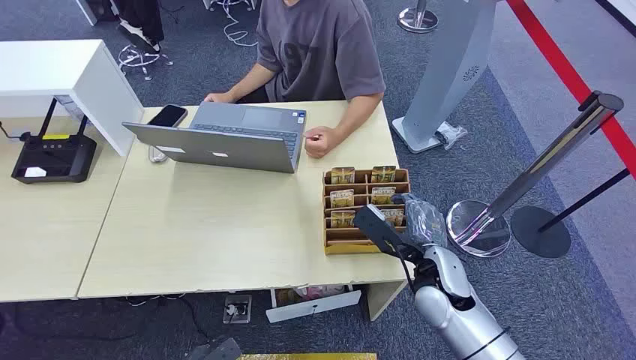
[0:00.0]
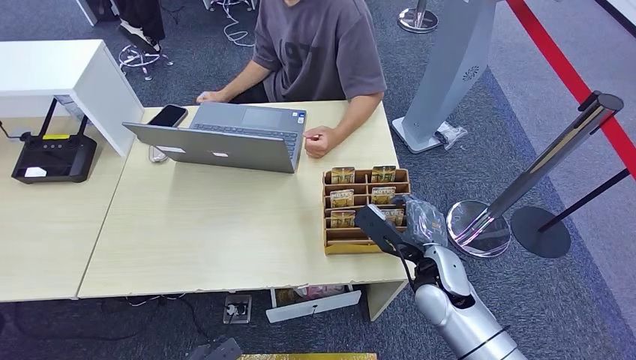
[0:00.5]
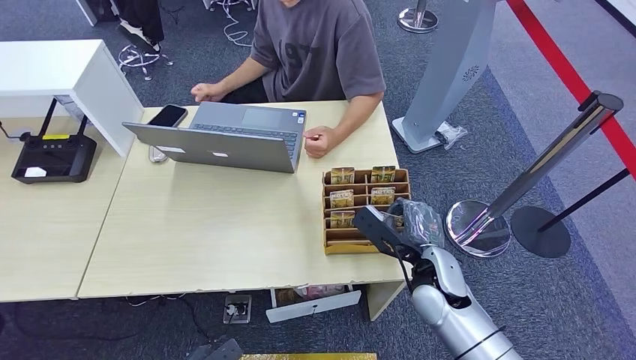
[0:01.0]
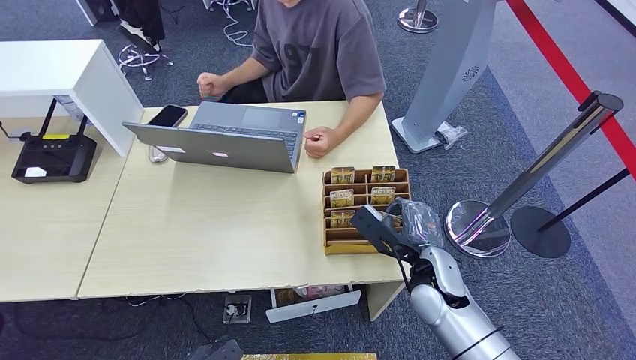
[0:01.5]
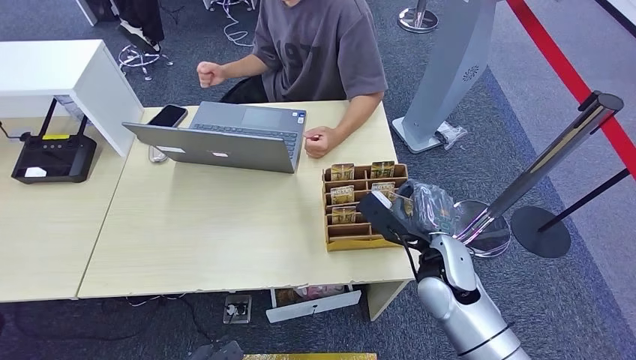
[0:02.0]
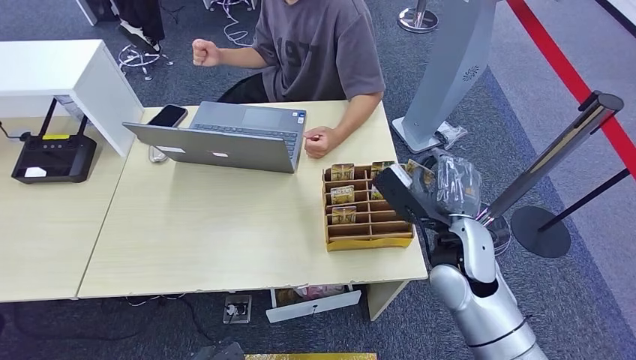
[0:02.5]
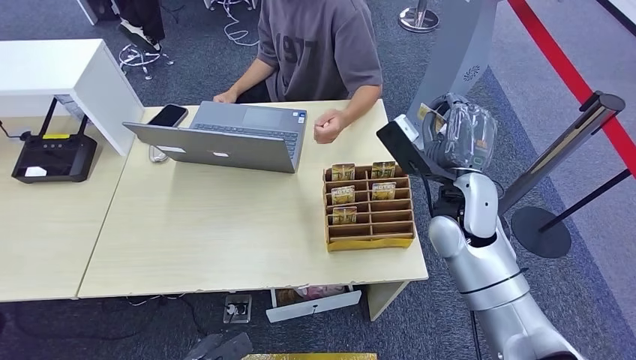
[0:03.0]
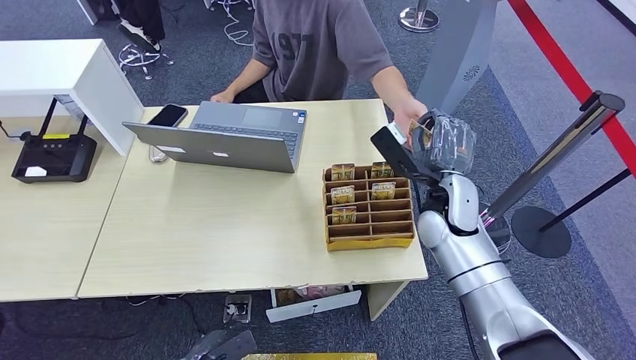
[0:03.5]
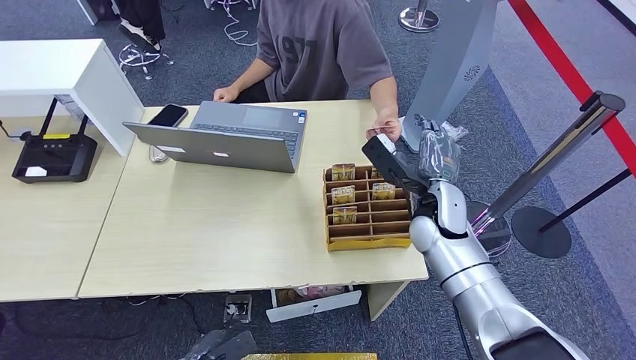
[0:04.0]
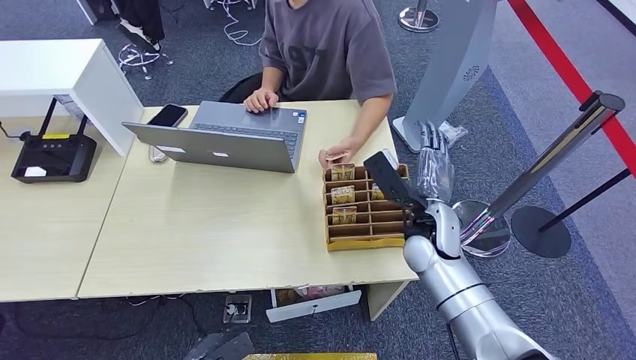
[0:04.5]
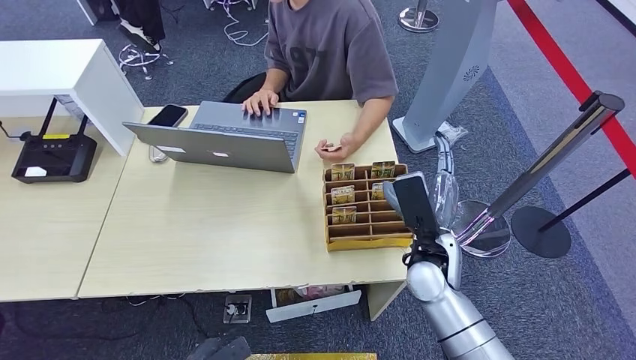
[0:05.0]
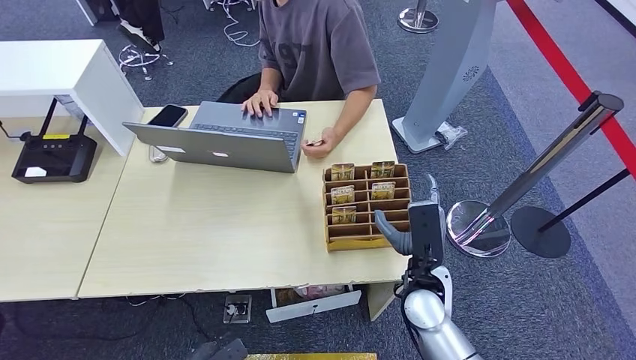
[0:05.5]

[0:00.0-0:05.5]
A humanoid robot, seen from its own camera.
Step, 0:00.0 to 0:02.5: Pick up the room card from the card holder.
Step, 0:03.0 to 0:05.0: Hand the room card to the target.
0:02.0 to 0:03.5: The right hand travels forward and upward by approximately 10 cm.
0:03.5 to 0:05.5: The right hand moves backward and downward, about 15 cm.

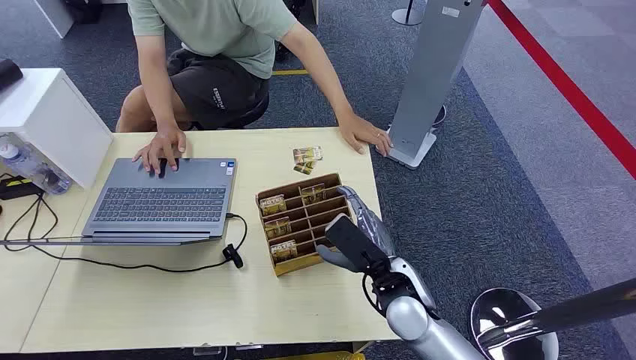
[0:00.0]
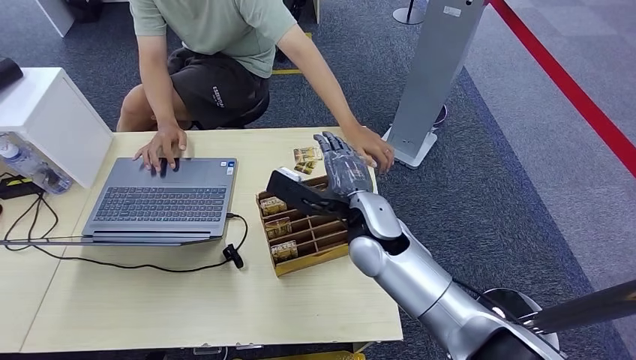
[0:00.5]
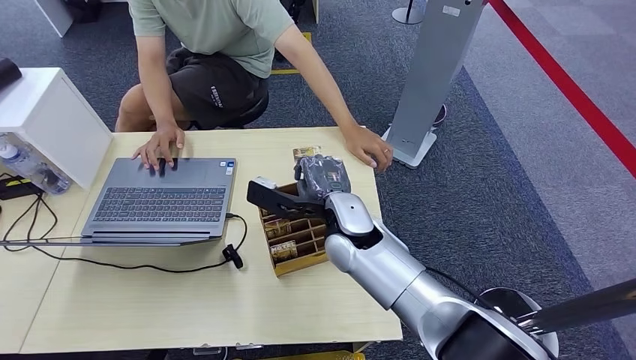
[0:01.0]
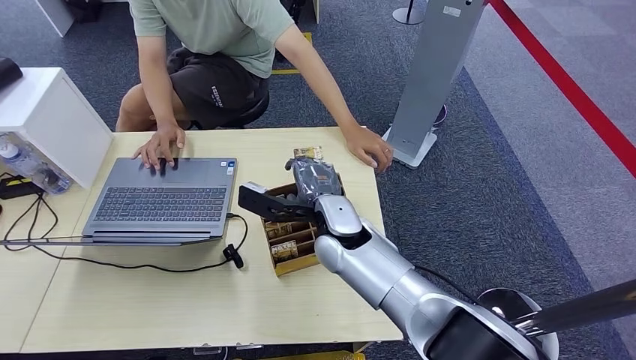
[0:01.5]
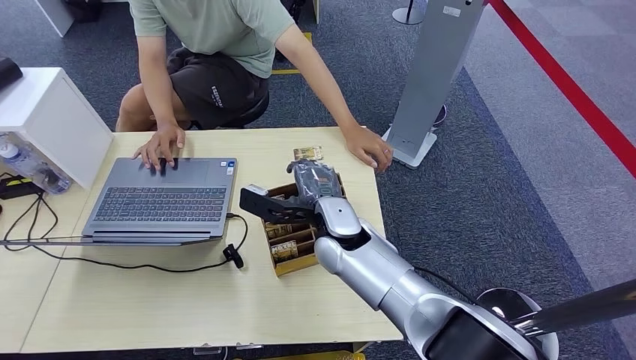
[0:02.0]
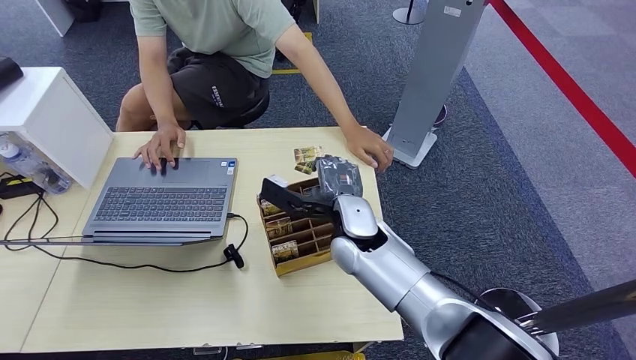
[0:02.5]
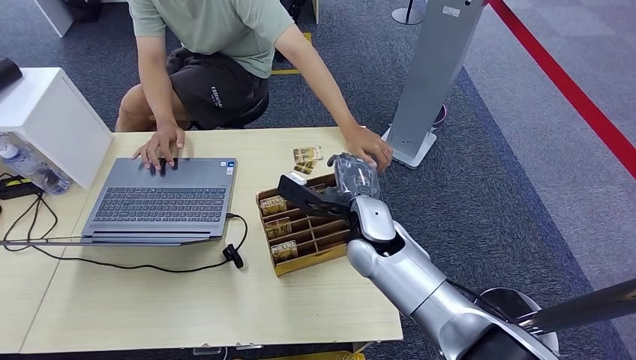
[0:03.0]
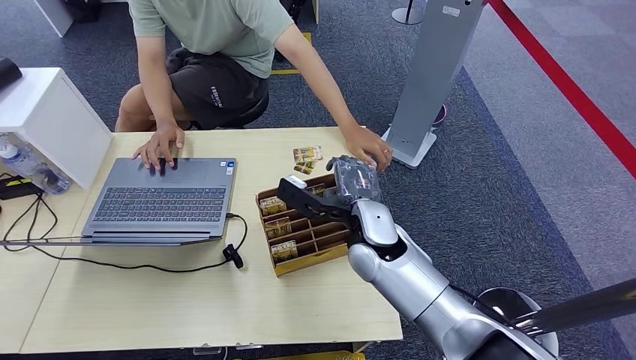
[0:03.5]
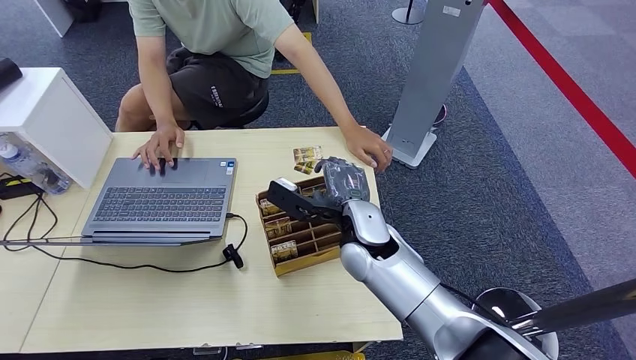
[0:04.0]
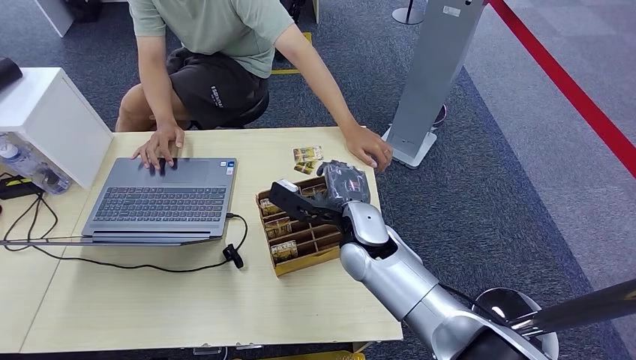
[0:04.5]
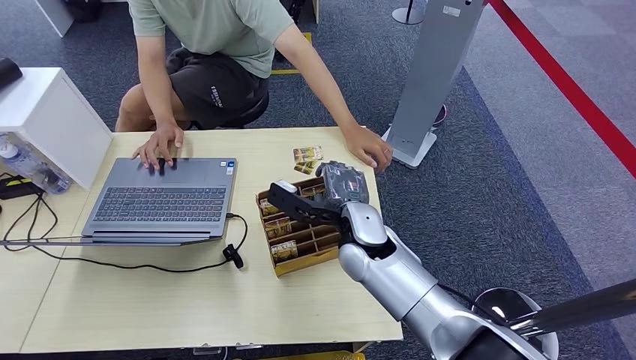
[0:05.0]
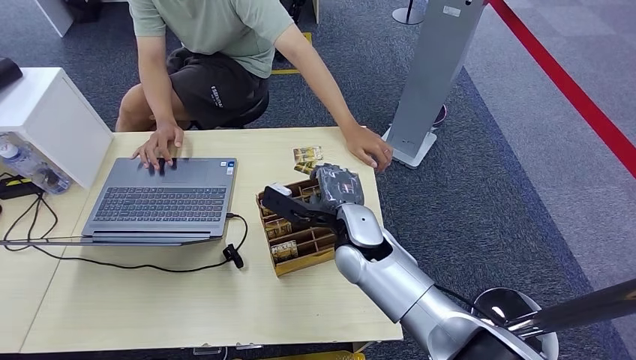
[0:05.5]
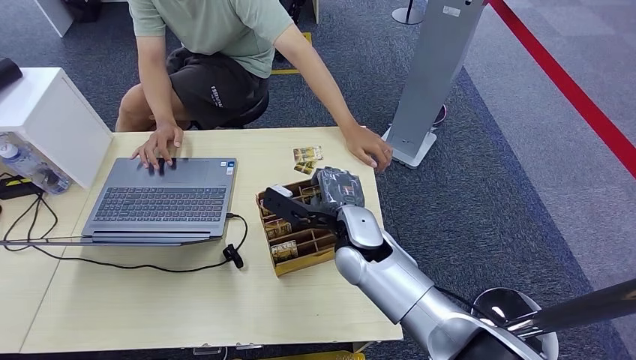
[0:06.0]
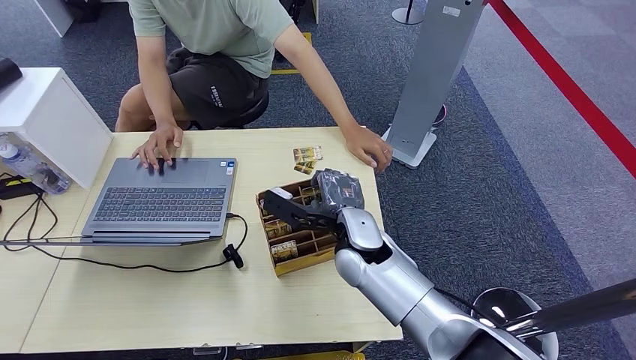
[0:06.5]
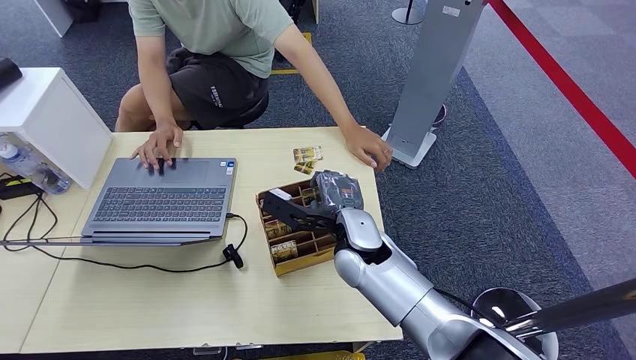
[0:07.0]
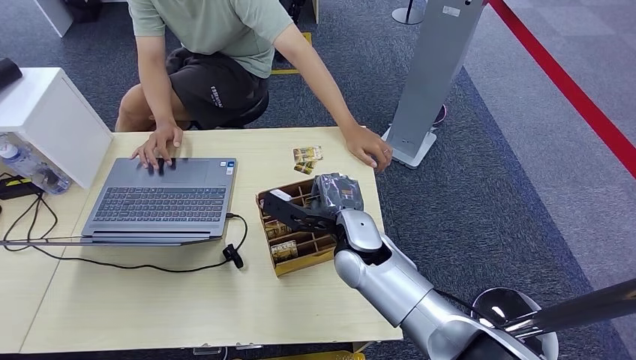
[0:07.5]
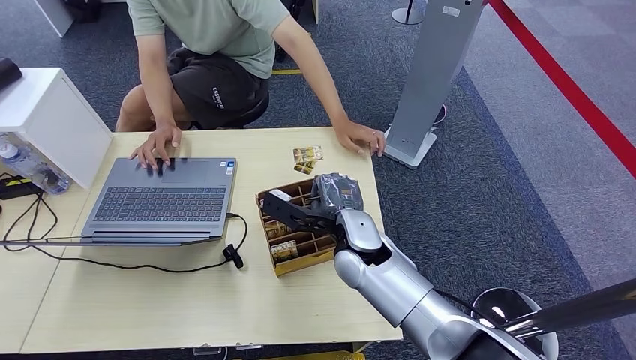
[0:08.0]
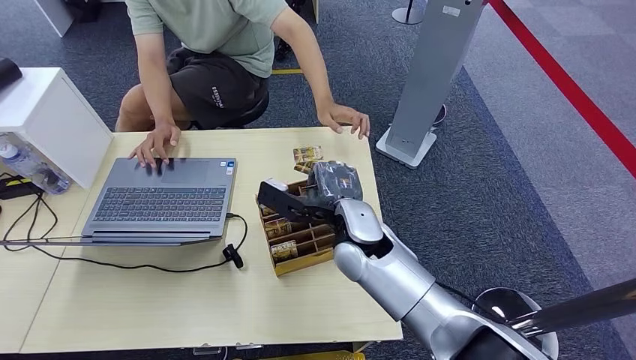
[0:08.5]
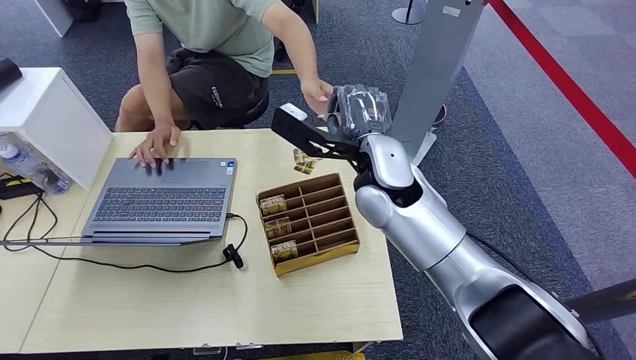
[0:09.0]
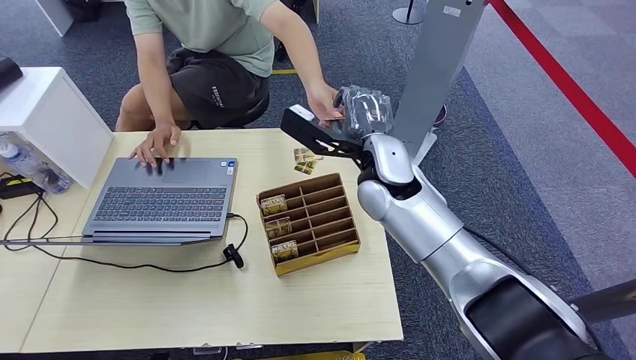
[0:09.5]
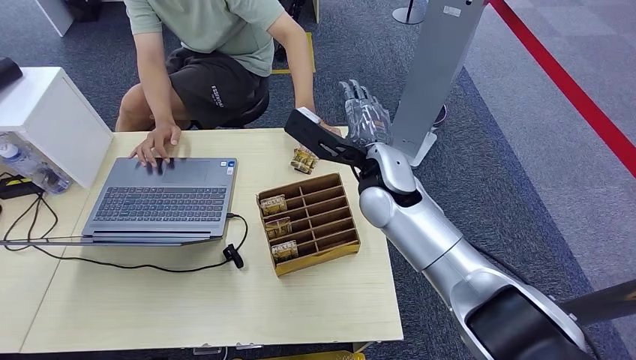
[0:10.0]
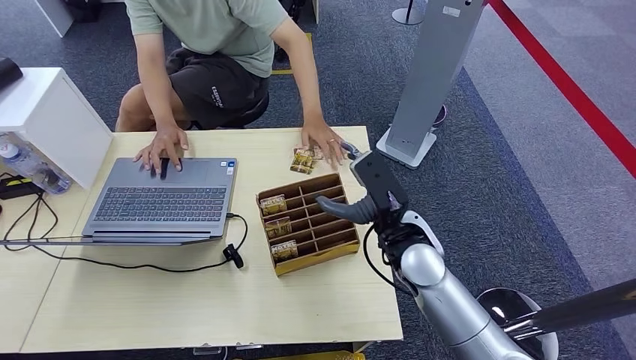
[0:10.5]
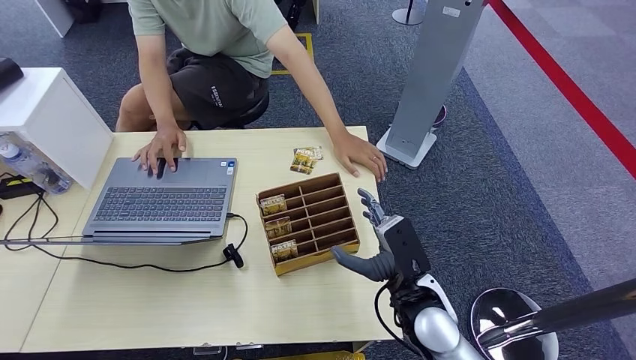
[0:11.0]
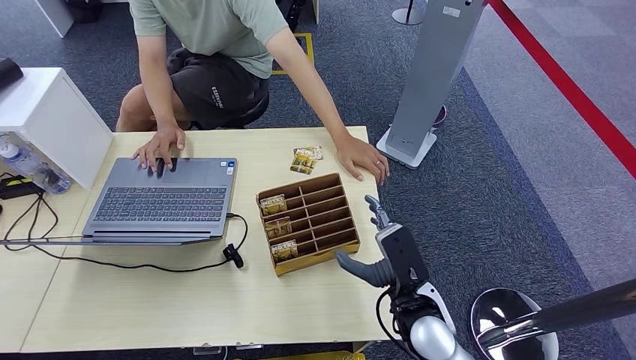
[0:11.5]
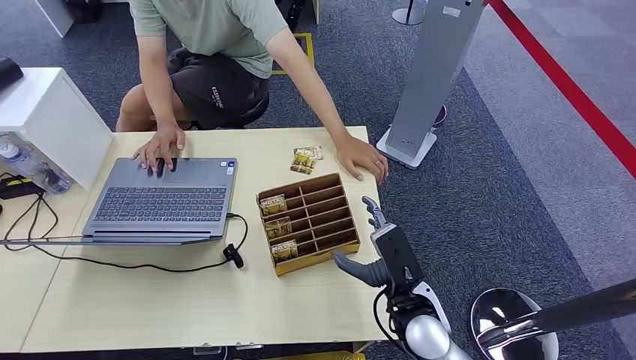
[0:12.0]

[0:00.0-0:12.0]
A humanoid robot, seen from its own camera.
Step, 0:00.0 to 0:08.5: Pick up the room card from the card holder.
Step, 0:09.0 to 0:11.5: Hand the room card to the target.
0:02.0 to 0:04.0: There are only small adjustments of the hands.
0:04.0 to 0:06.0: Both hands stay about where they are.
0:06.0 to 0:08.0: Both hands stay about where they are.
0:08.0 to 0:10.0: The right hand goes some 10 cm upward and forward.
0:10.0 to 0:12.0: The right hand shifts approximately 25 cm backward and downward.

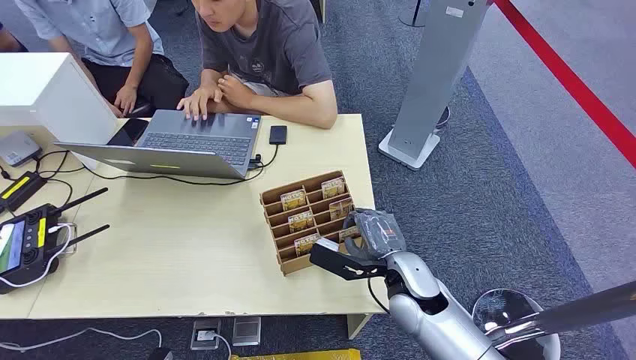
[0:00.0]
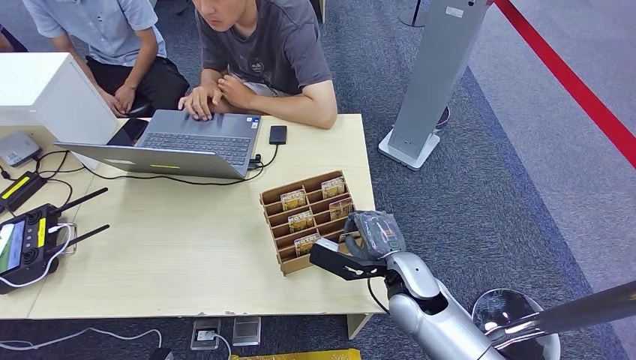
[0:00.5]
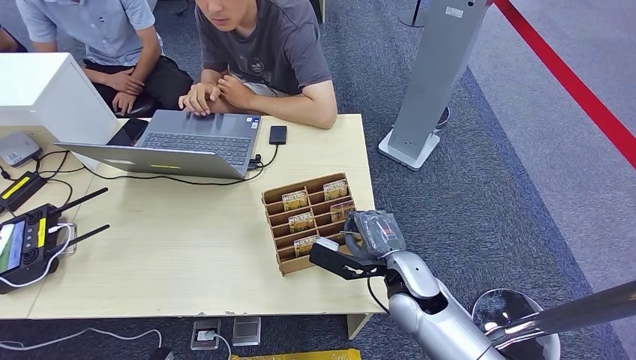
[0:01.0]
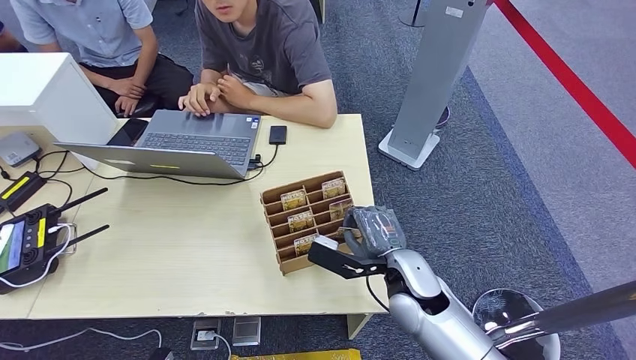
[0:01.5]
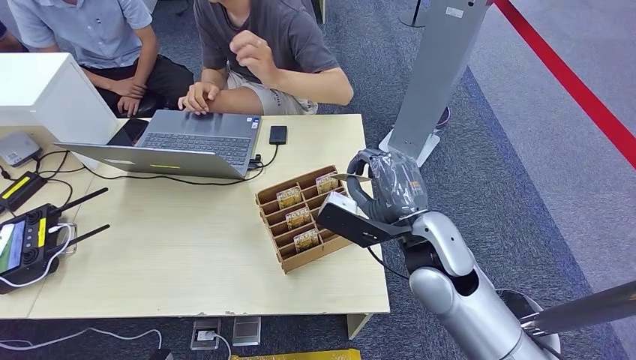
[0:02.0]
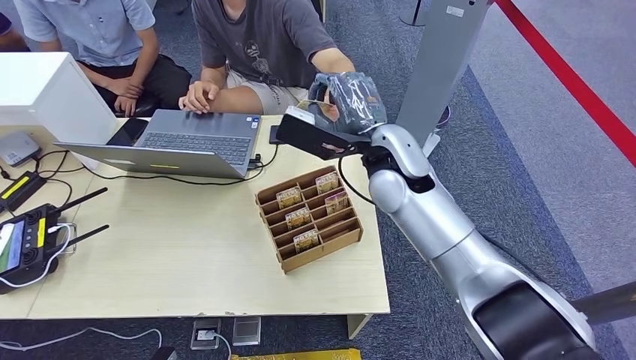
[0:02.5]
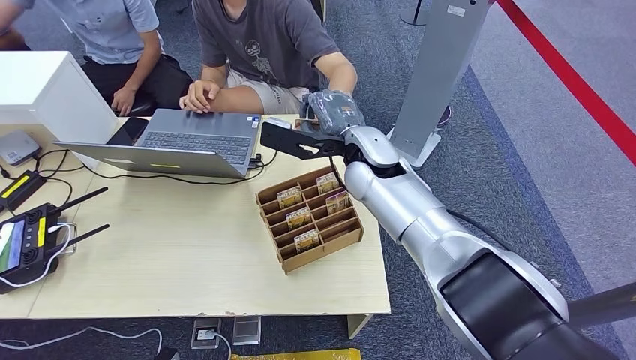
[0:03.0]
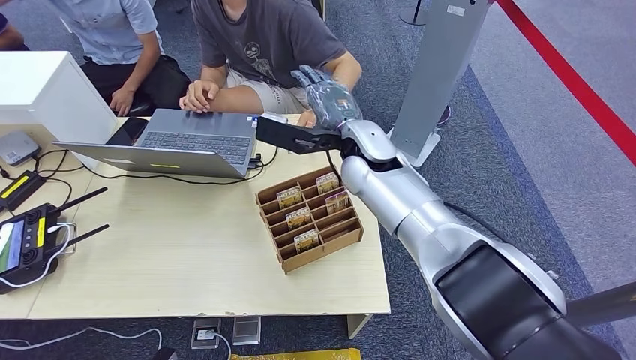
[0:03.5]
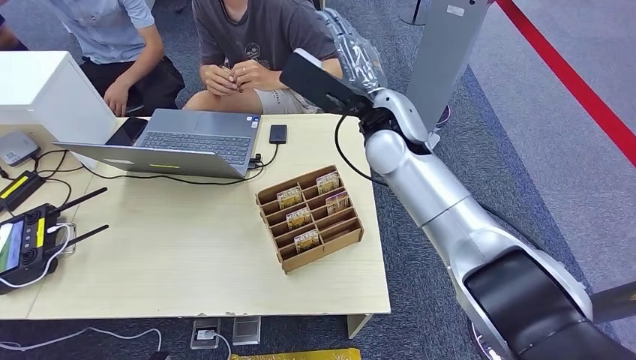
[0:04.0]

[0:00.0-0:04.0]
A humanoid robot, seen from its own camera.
Step, 0:00.0 to 0:01.5: Pick up the room card from the card holder.
Step, 0:02.5 to 0:04.0: Hand the room card to the target.
